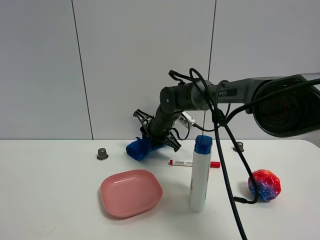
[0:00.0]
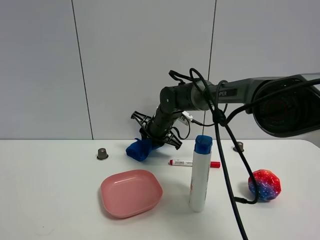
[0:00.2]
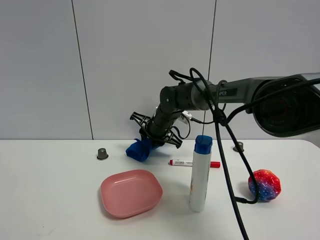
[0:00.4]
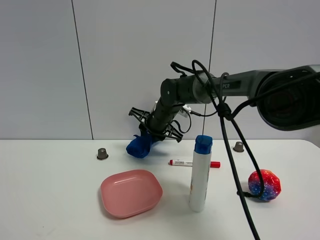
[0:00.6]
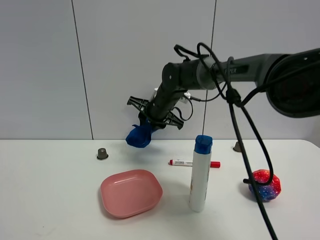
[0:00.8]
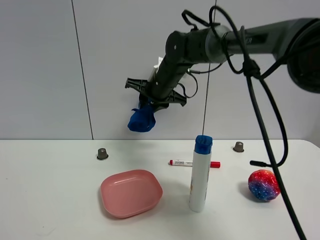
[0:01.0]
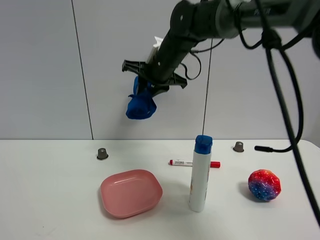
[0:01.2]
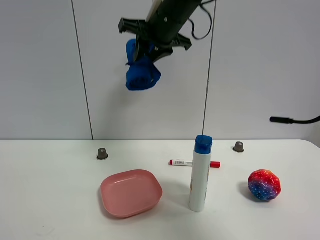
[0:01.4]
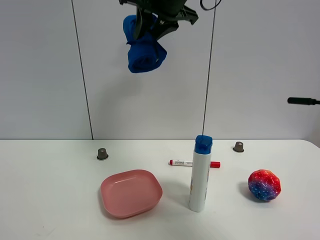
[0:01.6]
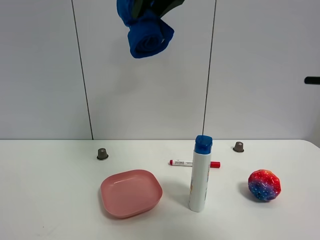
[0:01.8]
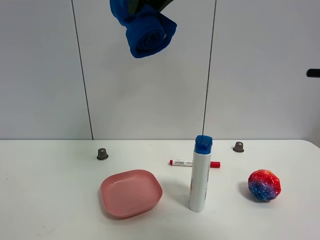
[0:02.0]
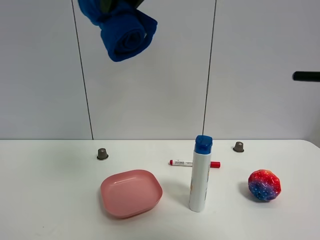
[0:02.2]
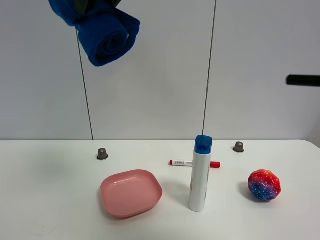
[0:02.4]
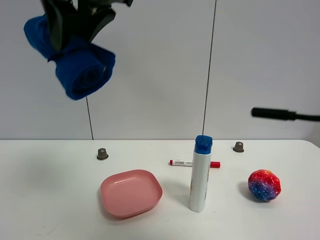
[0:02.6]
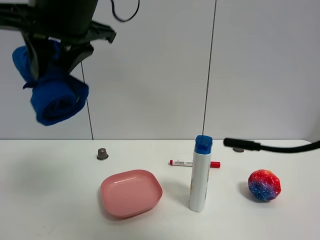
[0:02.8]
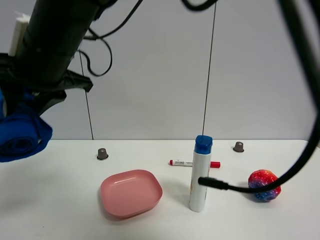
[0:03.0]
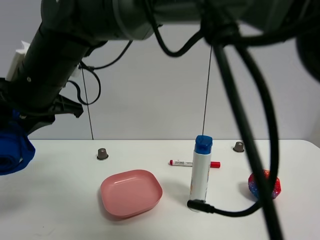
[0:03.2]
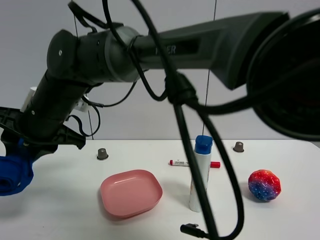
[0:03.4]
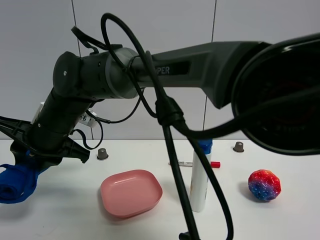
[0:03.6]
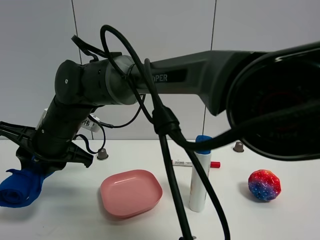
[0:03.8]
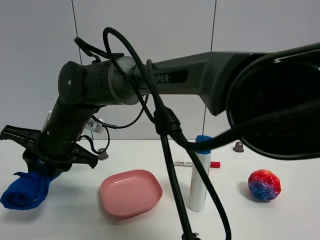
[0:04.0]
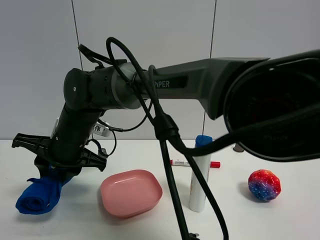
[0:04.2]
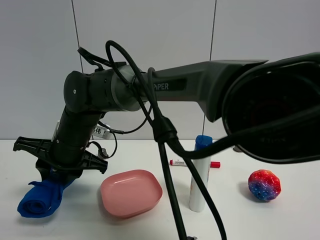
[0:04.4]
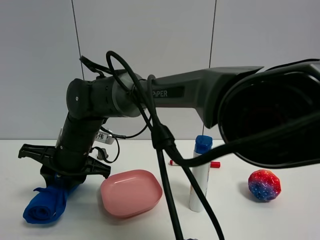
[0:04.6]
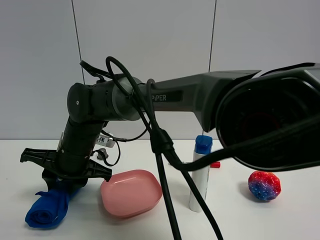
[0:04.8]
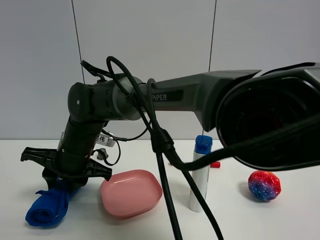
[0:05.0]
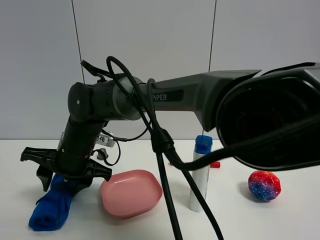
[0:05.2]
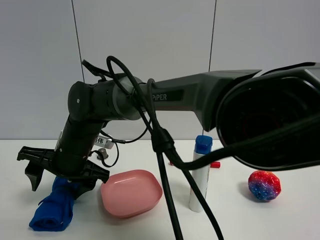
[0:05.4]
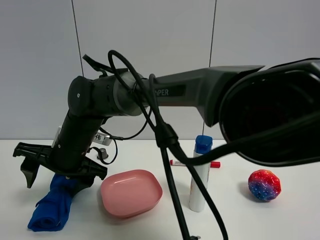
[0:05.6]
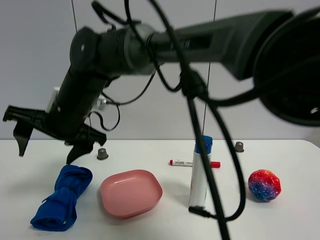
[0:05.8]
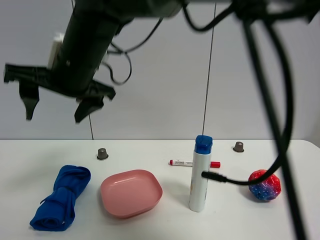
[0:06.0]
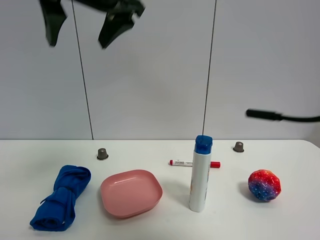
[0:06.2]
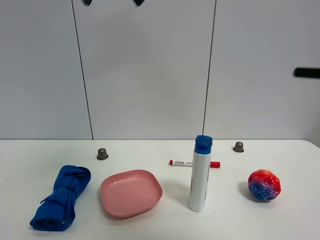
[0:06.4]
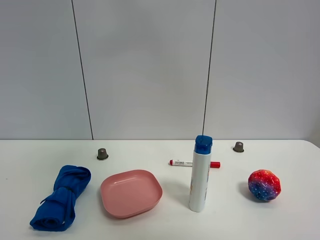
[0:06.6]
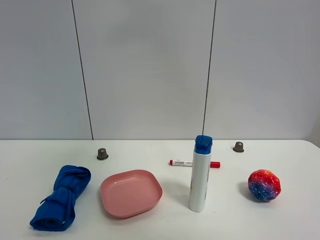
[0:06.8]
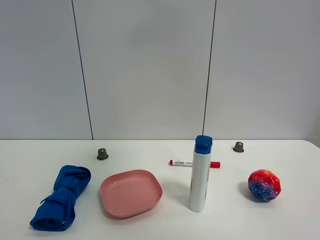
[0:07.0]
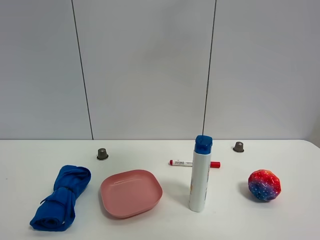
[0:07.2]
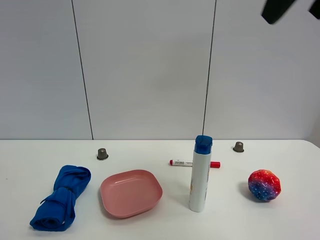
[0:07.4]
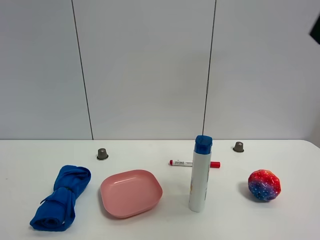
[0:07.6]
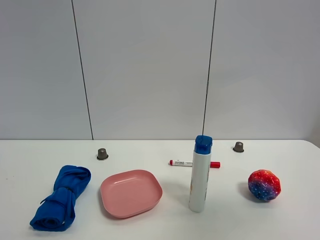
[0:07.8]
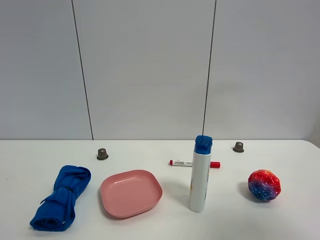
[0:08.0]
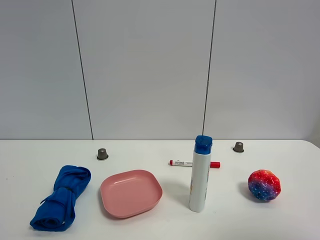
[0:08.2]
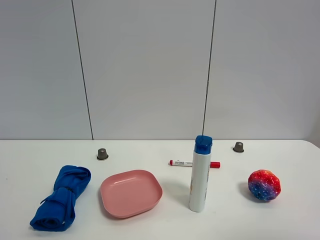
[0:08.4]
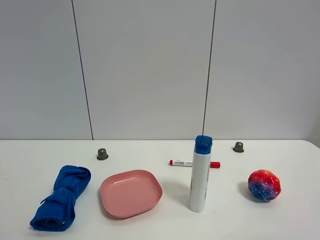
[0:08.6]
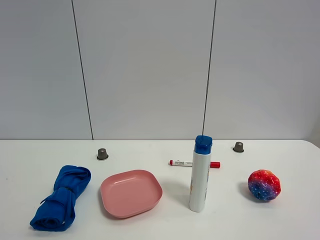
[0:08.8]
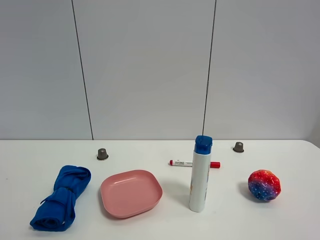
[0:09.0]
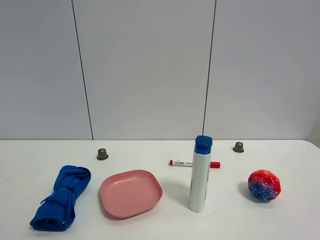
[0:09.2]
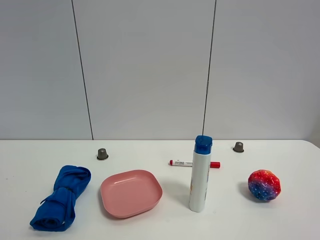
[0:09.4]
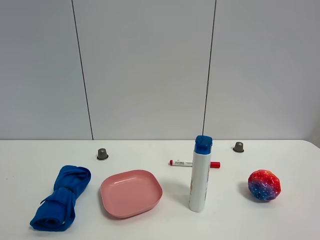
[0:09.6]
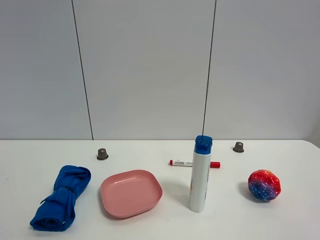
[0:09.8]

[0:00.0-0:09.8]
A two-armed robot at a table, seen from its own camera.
Task of the whole recording: the gripper move the object.
Step, 0:00.2 to 0:05.6: Place the blue towel on the table with the right gripper.
0:00.0 to 0:01.4: The right gripper goes approximately 25 cm upward.
0:01.4 to 0:02.8: The right gripper shifts about 20 cm backward and to the left.
0:02.8 to 0:04.2: The right gripper is displaced downward by some 20 cm.
0:04.2 to 0:05.6: The right gripper opens up.
0:05.6 to 0:07.0: The right gripper is displaced upward and to the right by about 50 cm.
0:07.0 to 0:08.4: The right gripper goes some 35 cm downward, backward and to the right.

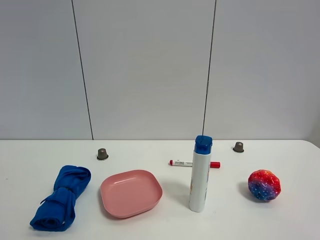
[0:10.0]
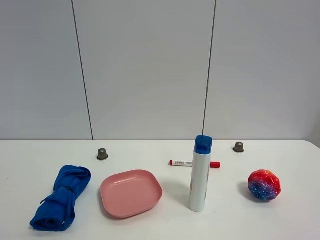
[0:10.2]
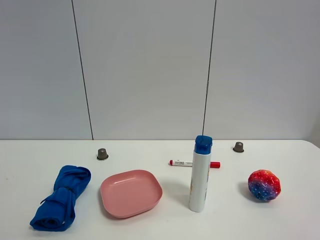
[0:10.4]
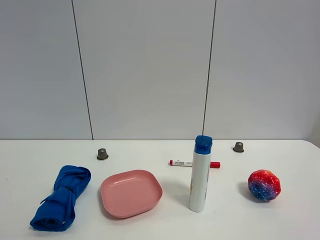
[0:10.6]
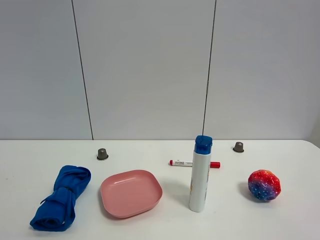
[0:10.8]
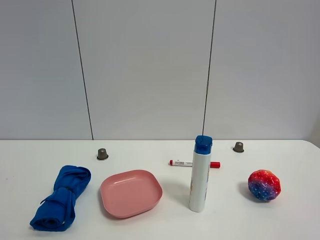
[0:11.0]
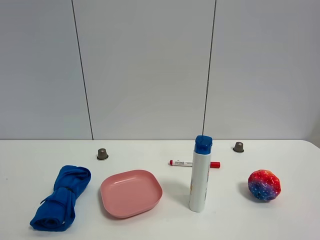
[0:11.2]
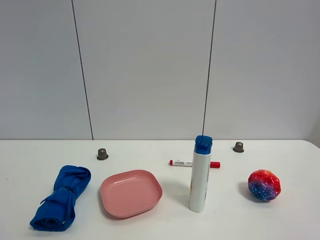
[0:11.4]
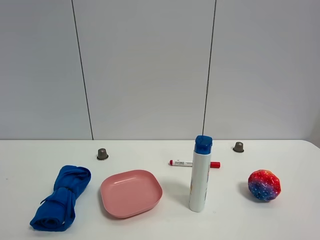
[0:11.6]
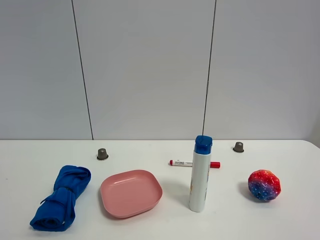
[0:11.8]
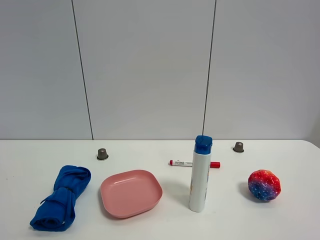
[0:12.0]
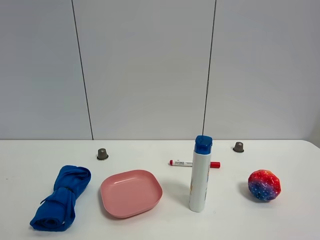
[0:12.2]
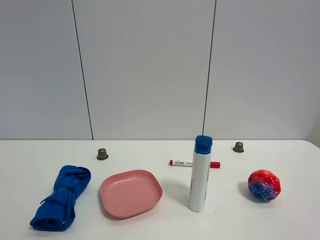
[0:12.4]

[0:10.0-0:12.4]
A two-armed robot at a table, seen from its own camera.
Task of the whole recording: the gripper move the object.
0:10.0 to 0:12.4: The two grippers keep their place.

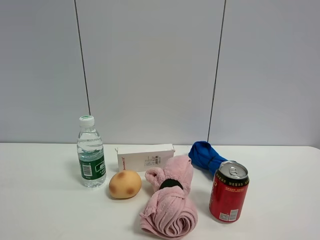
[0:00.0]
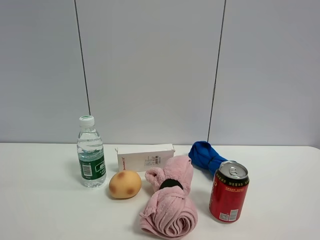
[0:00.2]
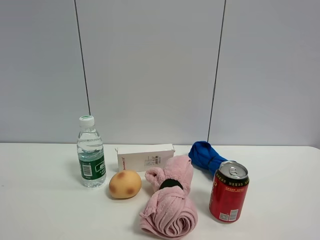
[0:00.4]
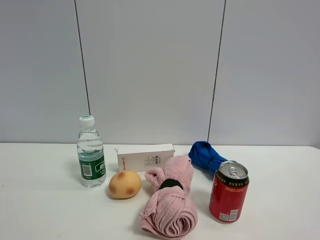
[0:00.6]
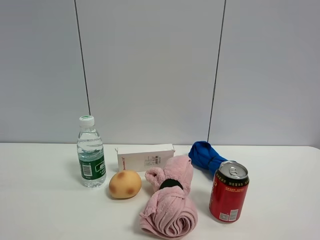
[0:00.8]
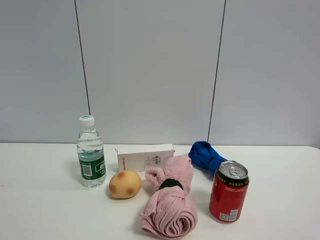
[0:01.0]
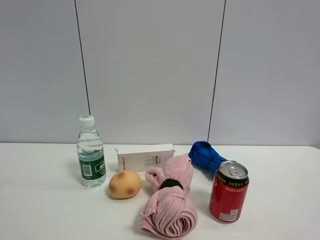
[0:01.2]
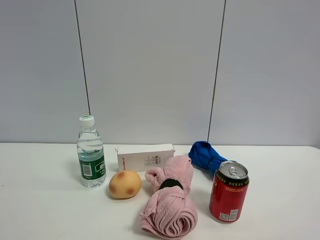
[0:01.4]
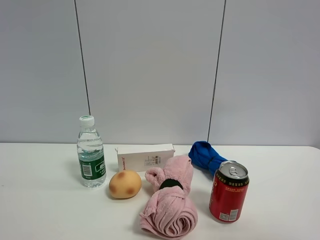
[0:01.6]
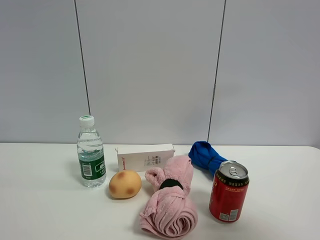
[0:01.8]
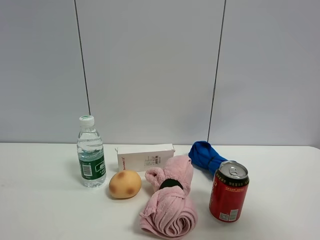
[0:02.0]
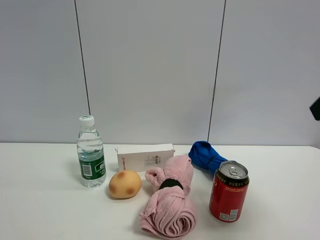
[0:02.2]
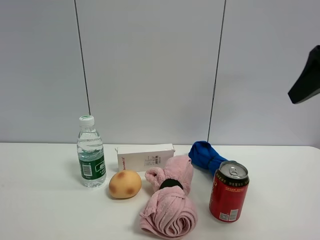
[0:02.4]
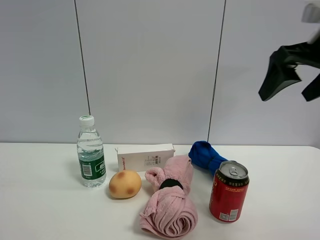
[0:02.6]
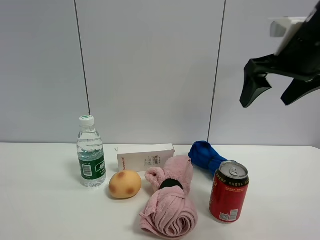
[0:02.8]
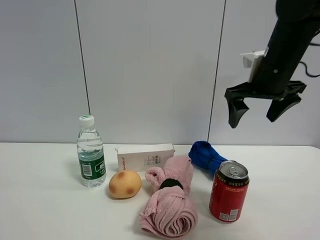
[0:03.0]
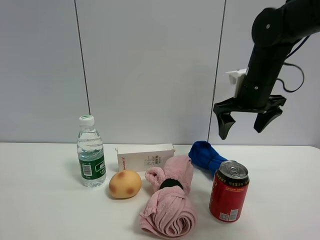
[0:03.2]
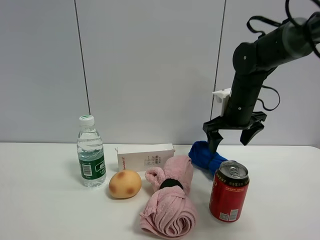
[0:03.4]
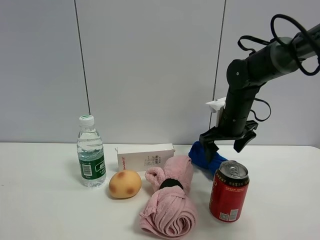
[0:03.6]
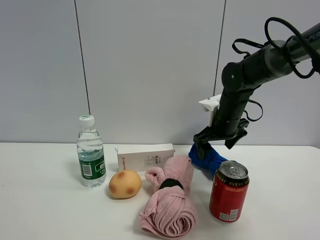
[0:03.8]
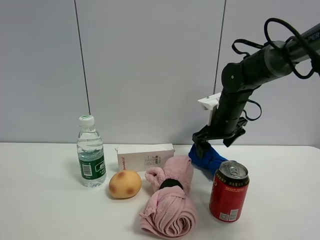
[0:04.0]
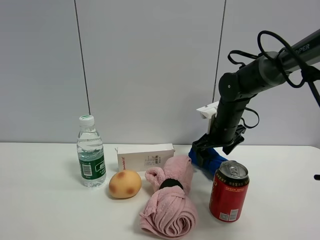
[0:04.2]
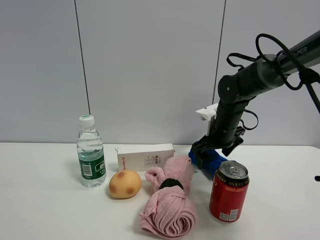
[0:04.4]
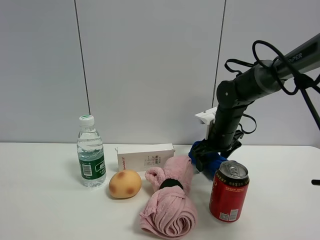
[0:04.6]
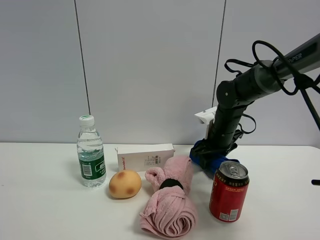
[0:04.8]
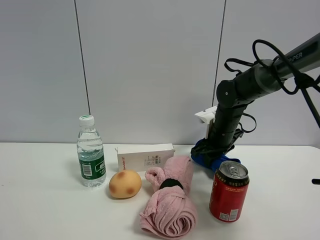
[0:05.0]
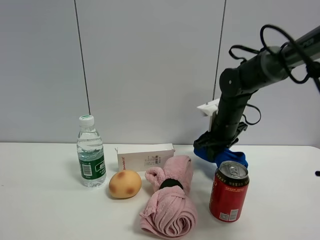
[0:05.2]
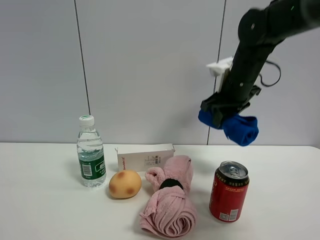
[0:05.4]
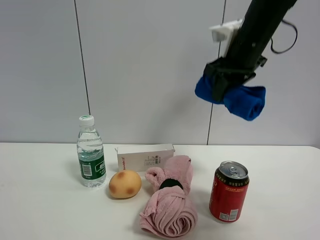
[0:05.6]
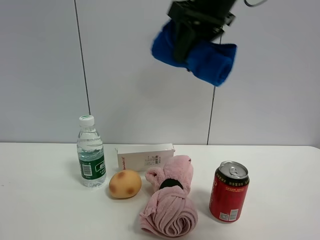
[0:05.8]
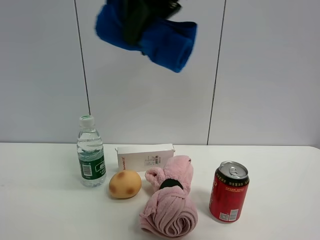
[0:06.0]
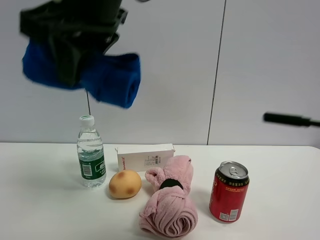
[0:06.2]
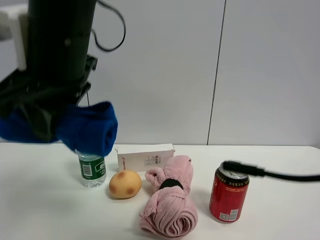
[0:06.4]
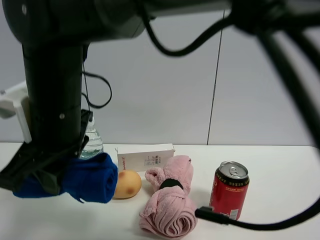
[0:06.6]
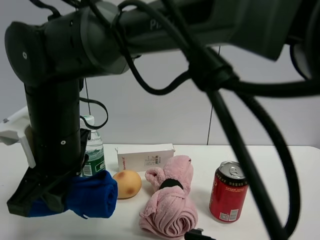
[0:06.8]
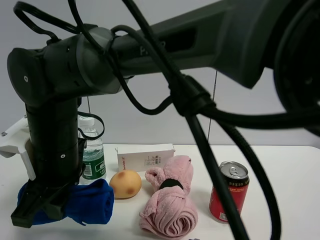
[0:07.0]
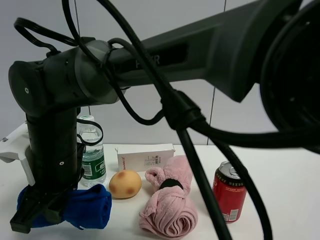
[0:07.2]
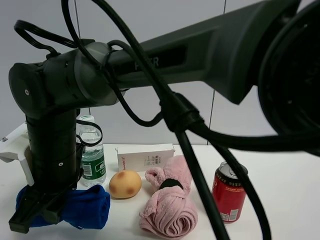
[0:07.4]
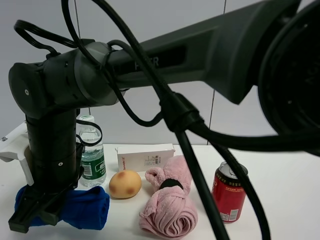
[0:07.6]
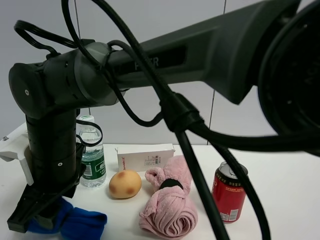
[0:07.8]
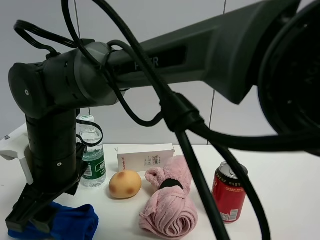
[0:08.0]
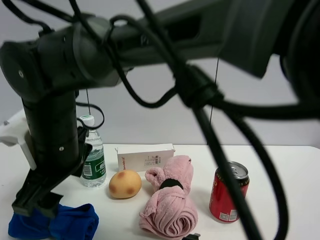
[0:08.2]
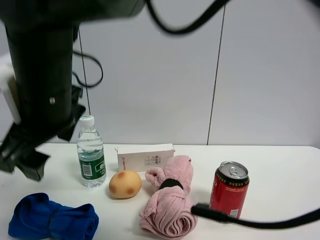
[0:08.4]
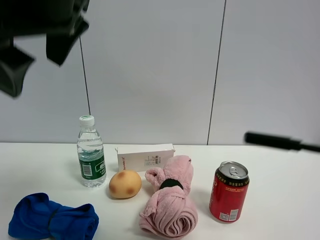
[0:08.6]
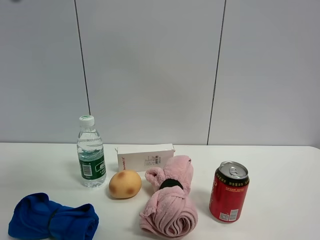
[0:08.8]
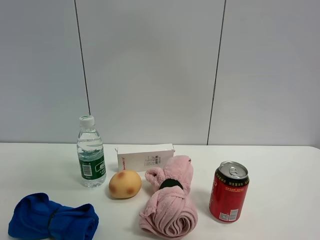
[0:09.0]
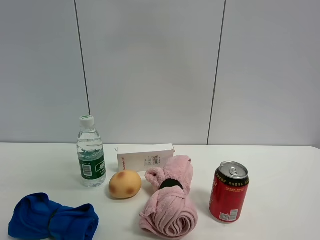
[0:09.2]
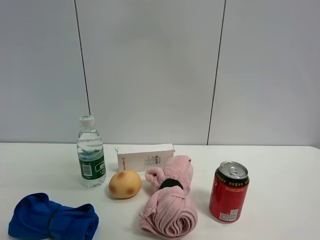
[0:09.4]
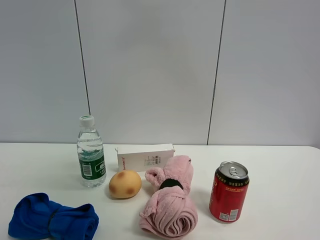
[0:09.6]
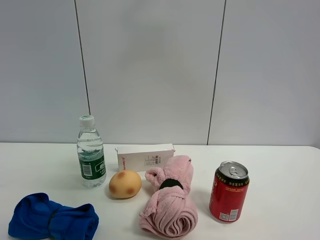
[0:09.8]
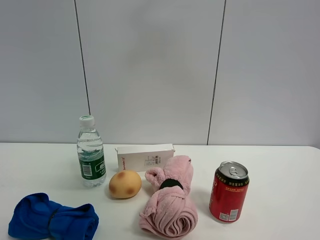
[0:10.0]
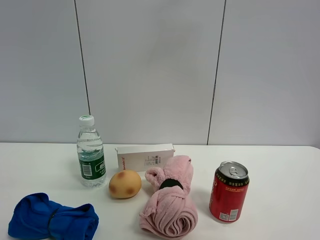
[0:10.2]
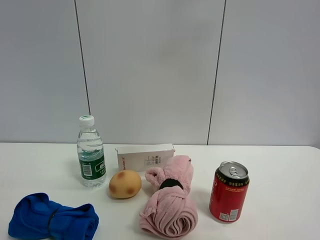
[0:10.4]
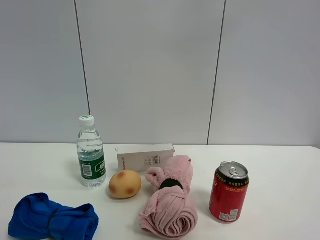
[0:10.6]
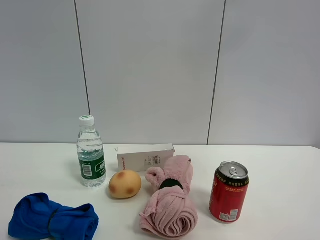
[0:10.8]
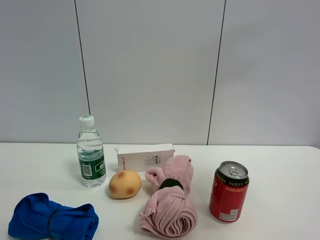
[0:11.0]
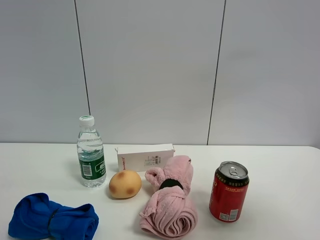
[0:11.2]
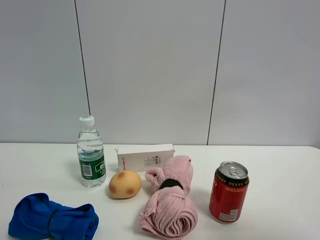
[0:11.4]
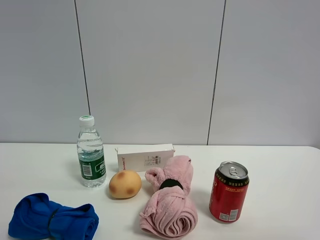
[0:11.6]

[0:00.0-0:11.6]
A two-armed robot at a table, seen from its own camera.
Task of the whole recording: the gripper move the object.
Step, 0:00.0 to 0:04.8: Grasp the blue towel with the right gripper.
Step, 0:05.0 to 0:08.2: Place the blue towel on the table with the right gripper.
0:01.4 to 0:02.8: The right gripper shifts some 30 cm forward.
0:02.8 to 0:04.4: The right gripper shifts about 20 cm downward and forward.
0:04.4 to 0:05.8: The right gripper moves upward and backward, roughly 30 cm, and closes up.
0:05.8 to 0:07.2: The right gripper heads downward and to the left, covering some 35 cm.
0:07.2 to 0:08.8: The right gripper goes approximately 30 cm upward, and opens its fingers.
0:08.8 to 0:10.2: The right gripper shifts roughly 15 cm to the right.
0:10.2 to 0:11.6: The right gripper travels backward, to the right and downward by about 30 cm.
